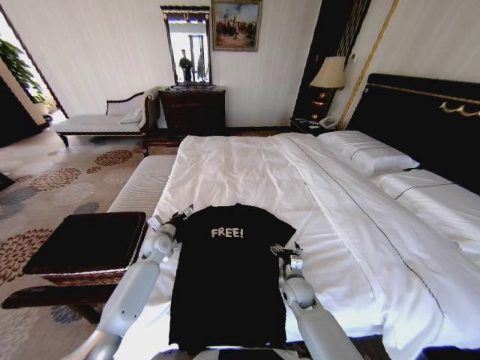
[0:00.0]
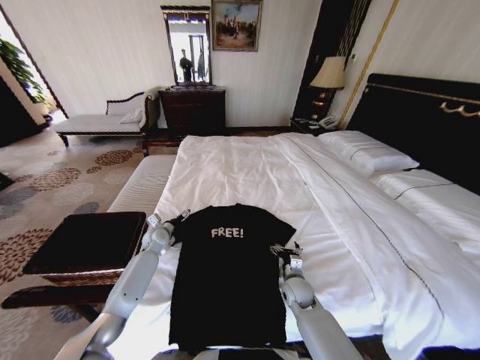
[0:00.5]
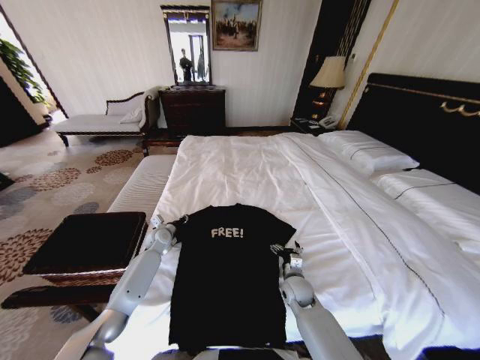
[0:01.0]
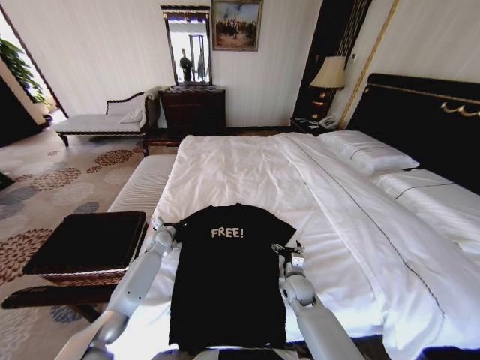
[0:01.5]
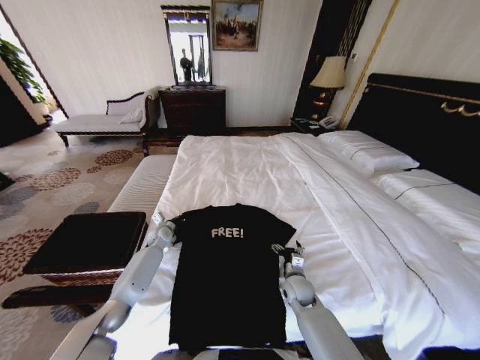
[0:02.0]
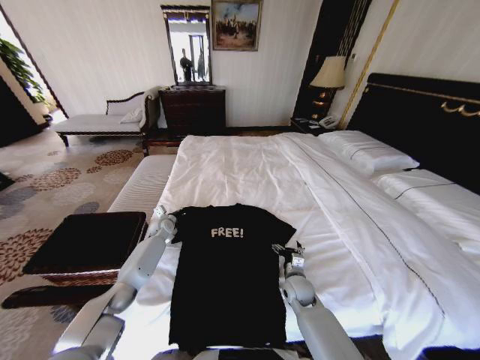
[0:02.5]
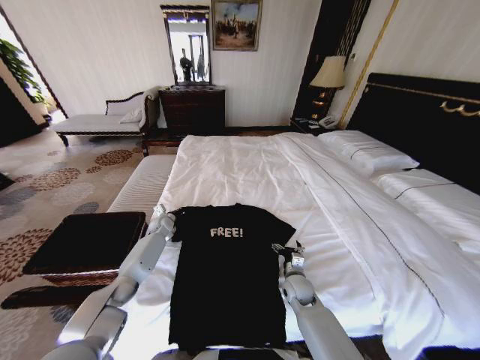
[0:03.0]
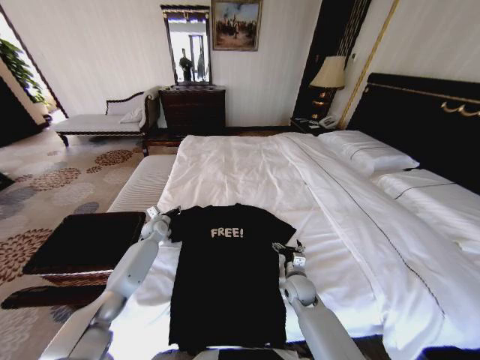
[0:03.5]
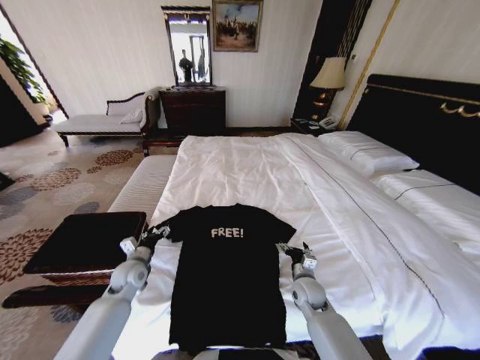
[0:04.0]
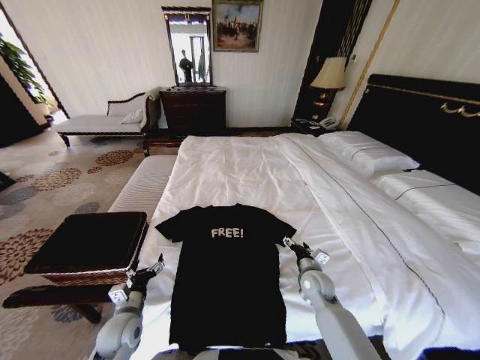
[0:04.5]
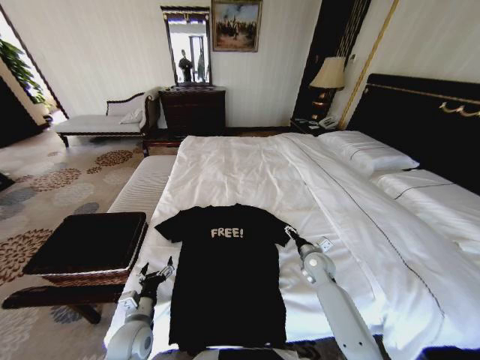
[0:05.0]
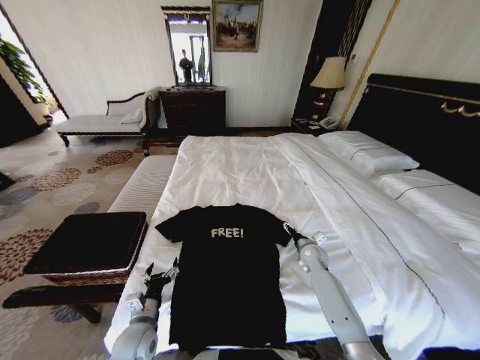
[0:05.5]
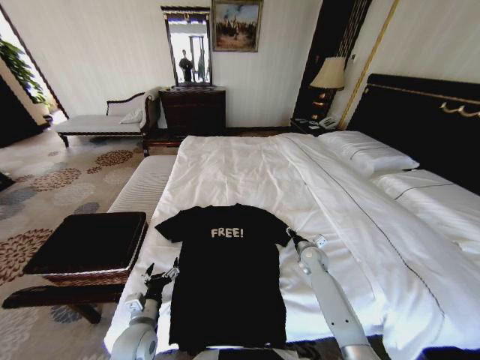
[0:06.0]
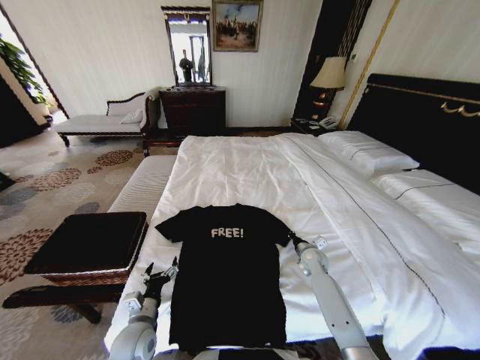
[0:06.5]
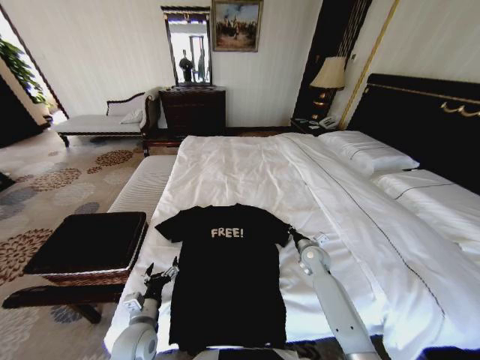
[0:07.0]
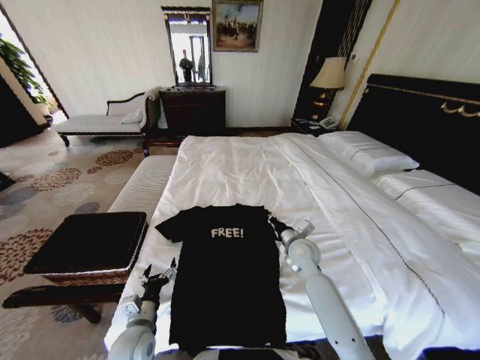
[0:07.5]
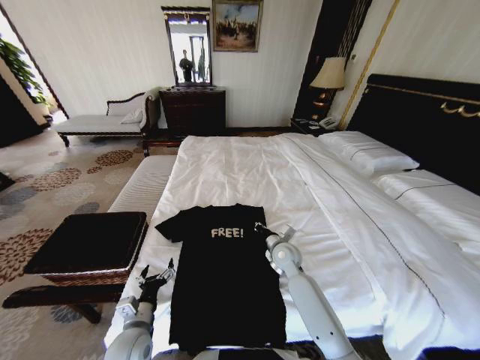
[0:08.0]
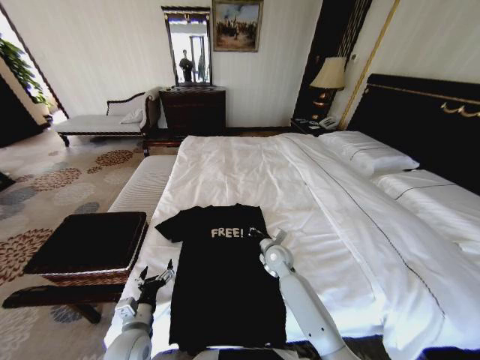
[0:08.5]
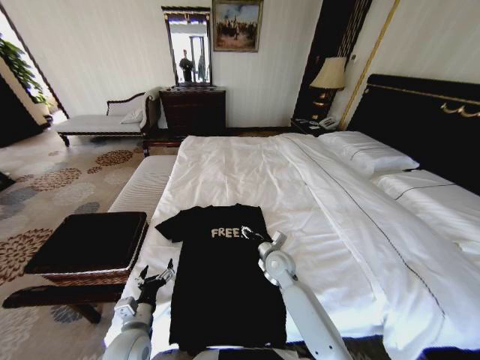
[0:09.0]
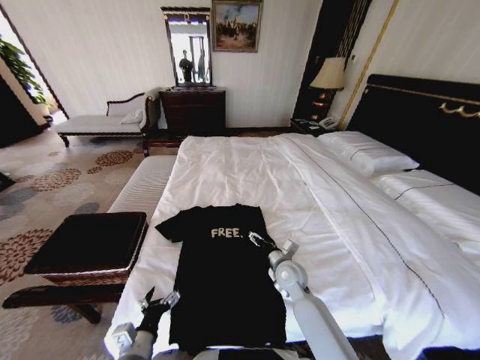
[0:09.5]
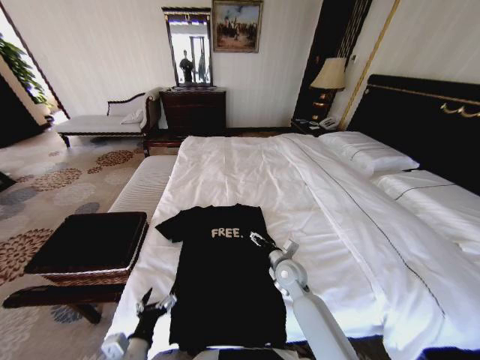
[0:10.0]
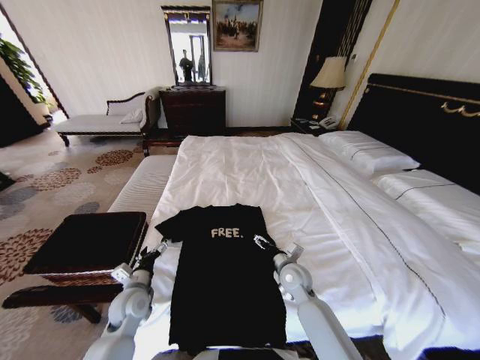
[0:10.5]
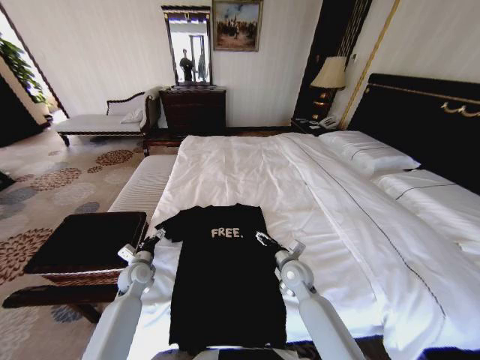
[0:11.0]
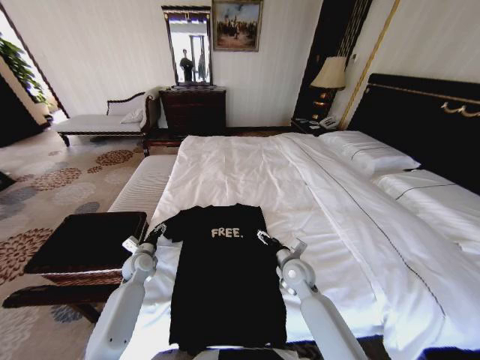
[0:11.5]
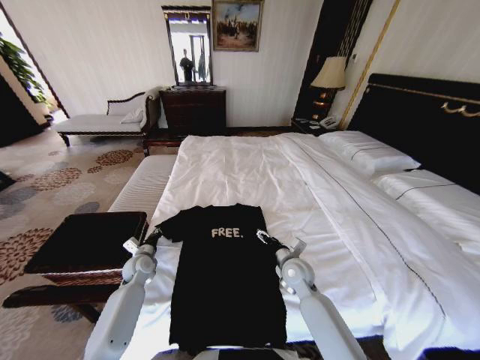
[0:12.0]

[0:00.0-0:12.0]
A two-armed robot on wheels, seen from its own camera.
Task of the whole recording: Fold the clothes on the bed and place them into the basket.
0:00.0 to 0:02.0: The left gripper goes about 5 cm forward, and closes up.
0:02.0 to 0:04.0: The left gripper goes about 15 cm backward, and opens its fingers.
0:04.0 to 0:06.0: The right gripper is displaced forward and to the right by roughly 15 cm, and closes; the left gripper heads backward and to the right, covering roughly 20 cm.
0:06.0 to 0:08.0: The right gripper moves to the left and upward, approximately 15 cm, and closes up.
0:08.0 to 0:10.0: The right gripper shifts some 5 cm backward, and opens up; the left gripper is displaced backward by some 10 cm.
0:10.0 to 0:12.0: The left gripper shifts some 30 cm forward, and closes its fingers.

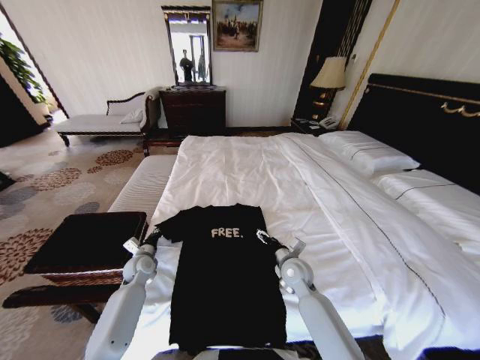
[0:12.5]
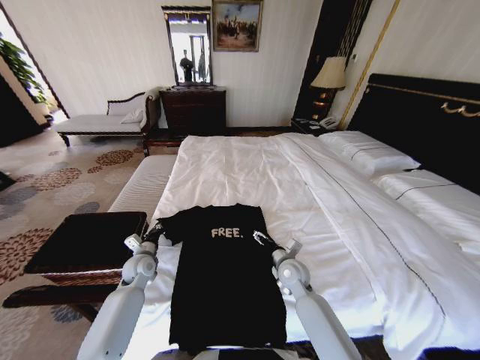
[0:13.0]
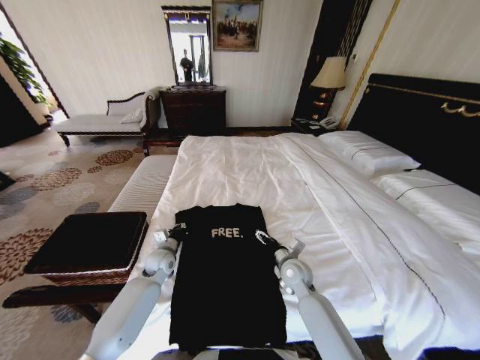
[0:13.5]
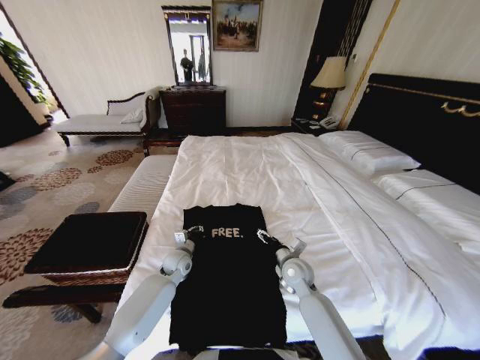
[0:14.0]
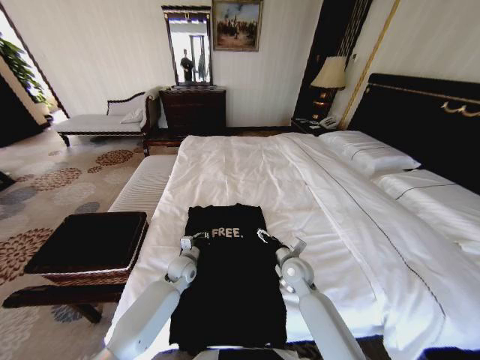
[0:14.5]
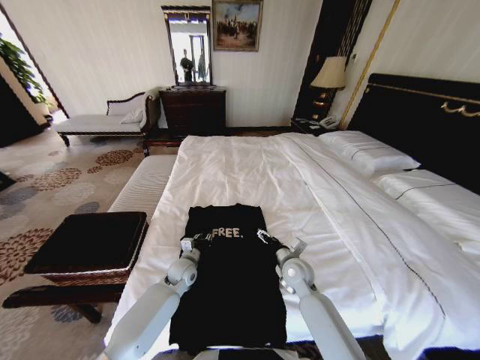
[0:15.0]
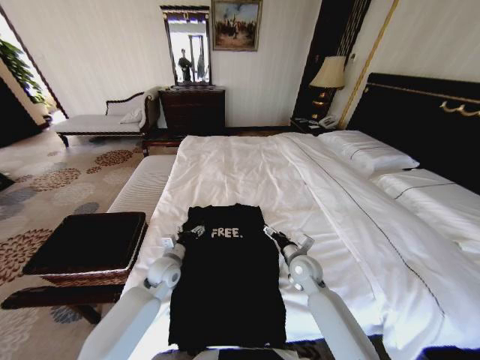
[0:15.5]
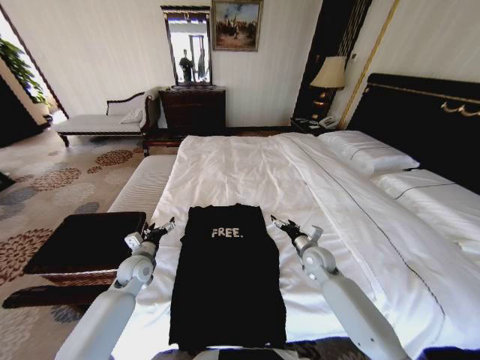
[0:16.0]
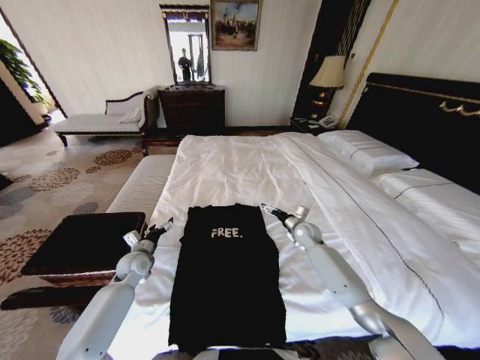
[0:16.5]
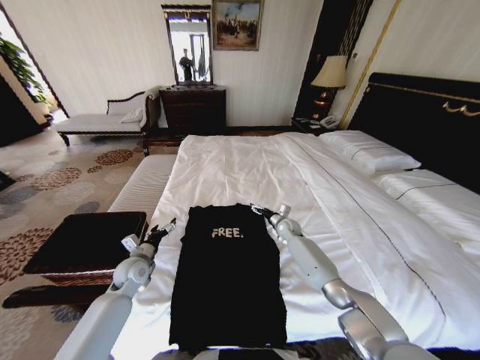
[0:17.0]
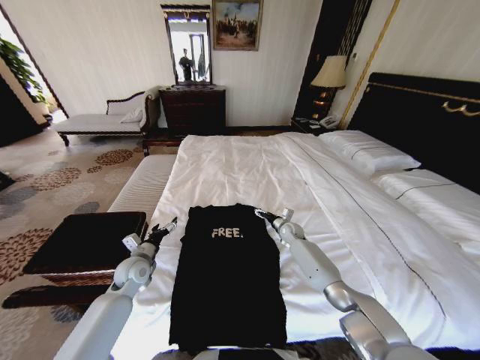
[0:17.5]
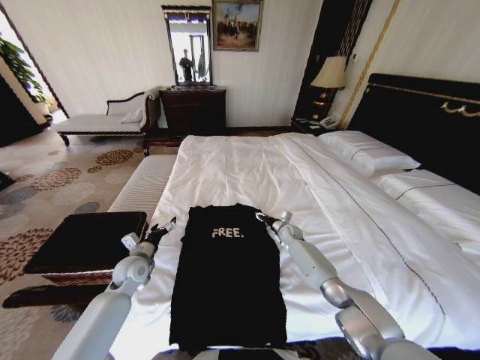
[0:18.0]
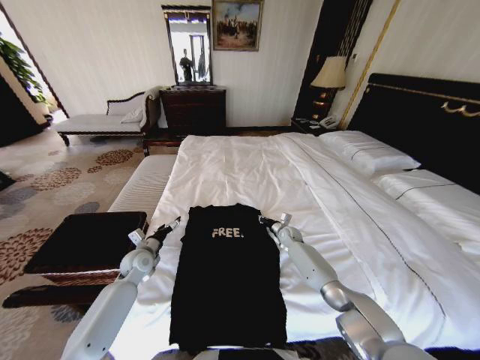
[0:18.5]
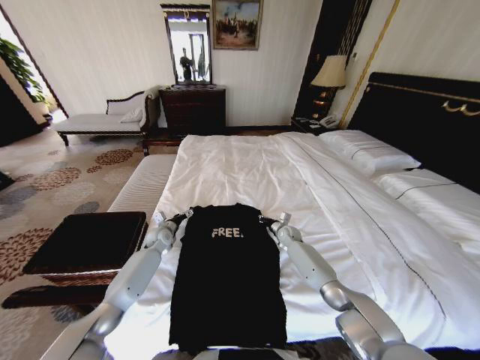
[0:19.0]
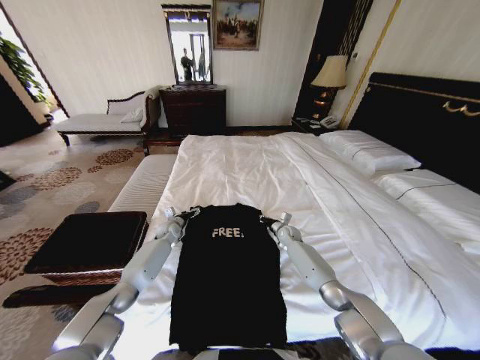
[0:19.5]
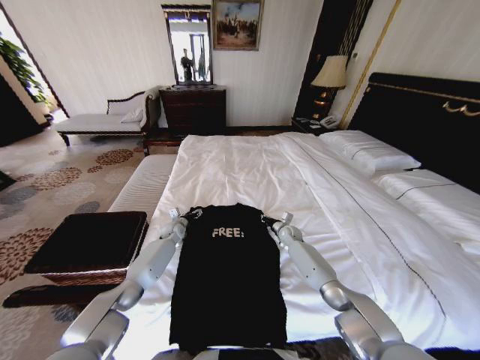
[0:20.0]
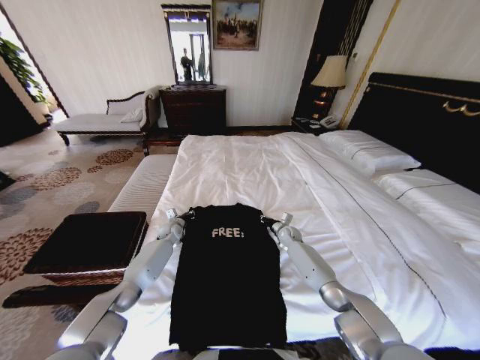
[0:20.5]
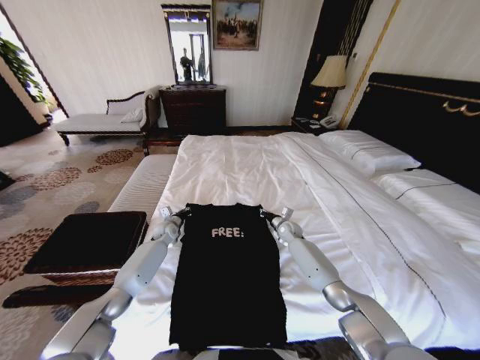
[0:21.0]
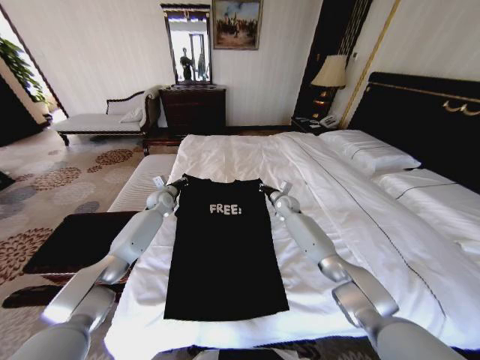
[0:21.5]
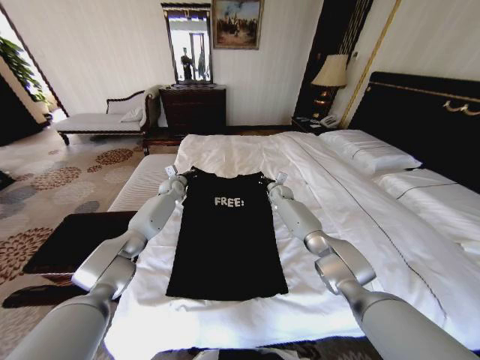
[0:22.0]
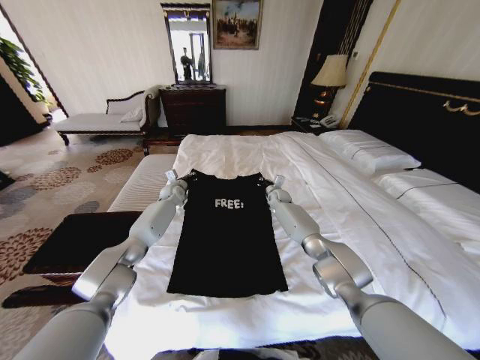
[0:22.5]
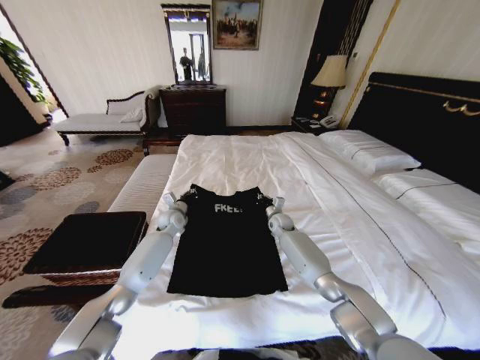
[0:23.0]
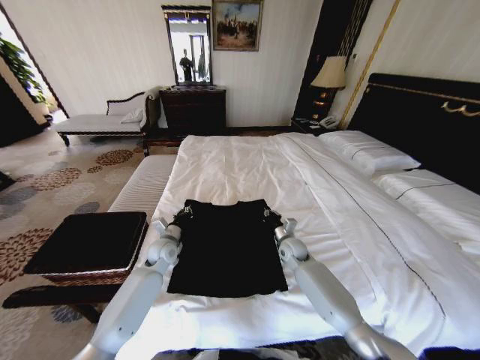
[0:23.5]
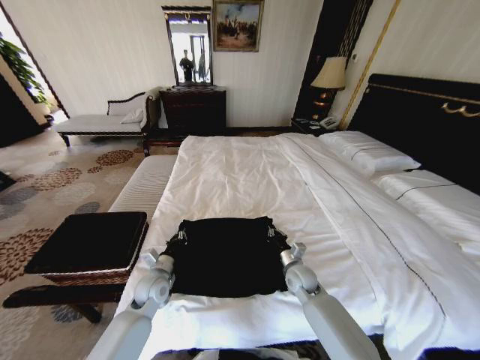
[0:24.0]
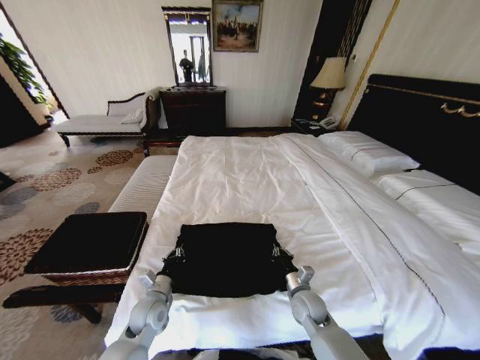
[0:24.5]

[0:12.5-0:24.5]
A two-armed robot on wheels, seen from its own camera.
Task of the whole recording: Fold the clothes on the bed and place them into the basket.
0:12.5 to 0:14.5: The left gripper travels to the right by some 15 cm.
0:14.5 to 0:16.5: The right gripper heads forward and to the right, covering roughly 15 cm; the left gripper moves to the left, some 15 cm, and opens its fingers.
0:16.5 to 0:18.5: The right gripper is displaced downward by approximately 10 cm, and closes up.
0:18.5 to 0:20.5: The left gripper goes some 15 cm forward, and closes.
0:20.5 to 0:22.5: Both grippers travel together upward and forward, roughly 15 cm.
0:22.5 to 0:24.5: Both grippers move backward, about 40 cm.

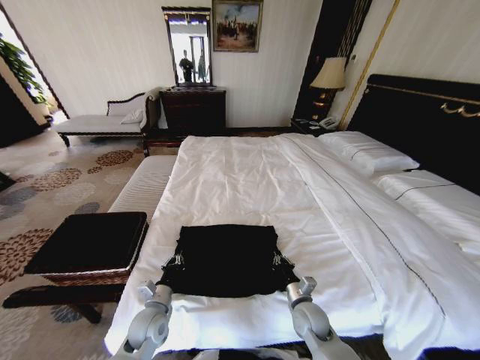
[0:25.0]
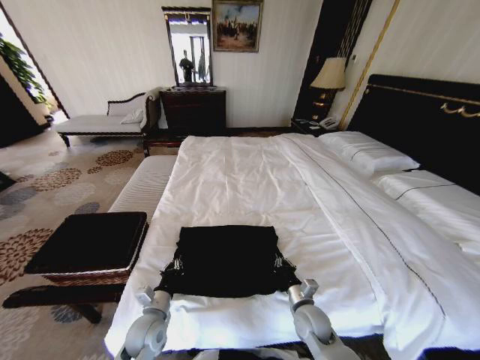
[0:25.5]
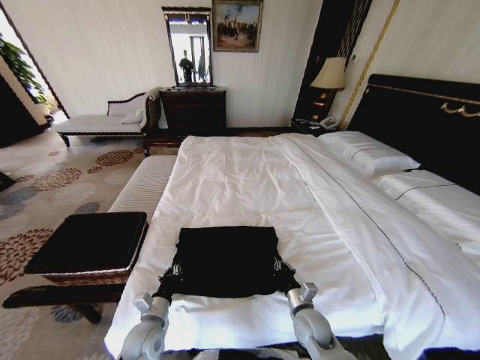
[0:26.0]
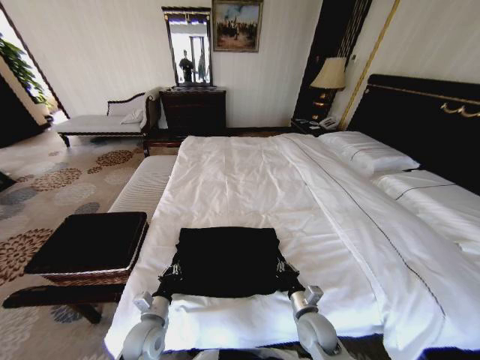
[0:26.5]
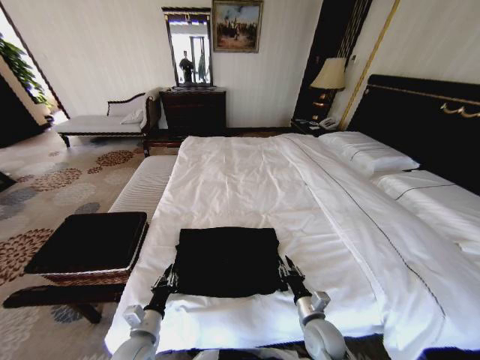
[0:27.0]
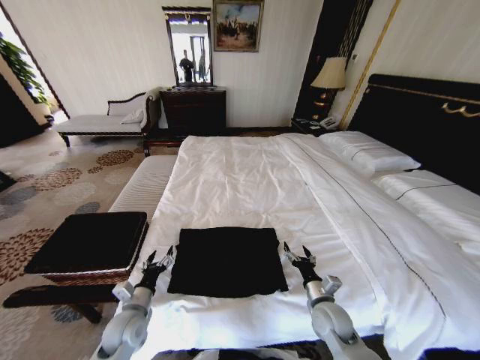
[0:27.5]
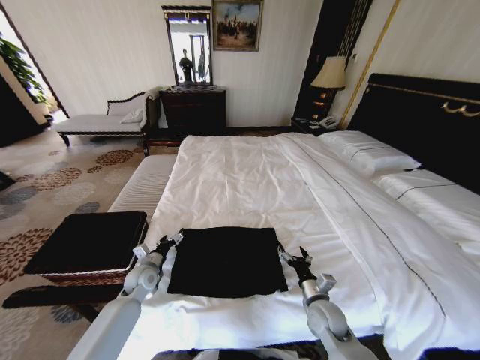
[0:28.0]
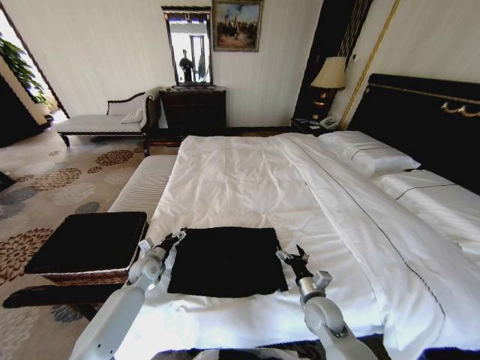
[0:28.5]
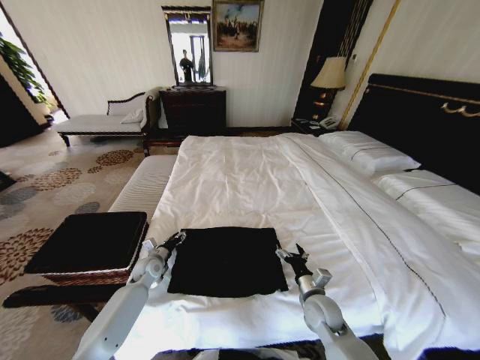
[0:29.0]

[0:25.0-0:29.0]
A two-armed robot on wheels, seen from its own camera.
Task of the whole recording: Fold the clothes on the bed and place them into the basket.
0:25.0 to 0:27.0: The left gripper heads backward, covering some 5 cm.
0:27.0 to 0:29.0: The left gripper heads forward, covering approximately 25 cm, and opens, while the right gripper is displaced forward by roughly 5 cm, and opens.
